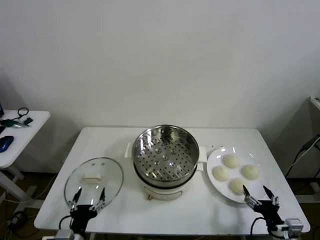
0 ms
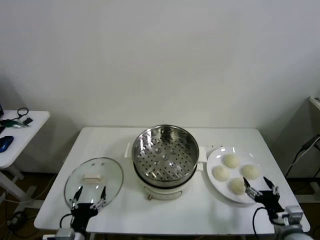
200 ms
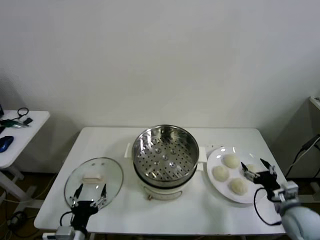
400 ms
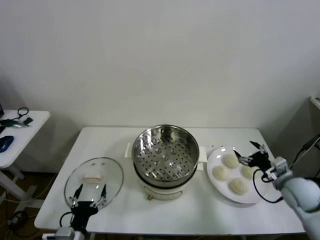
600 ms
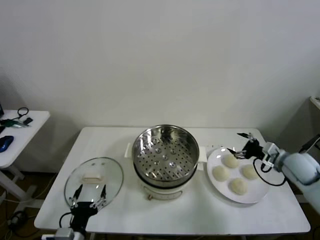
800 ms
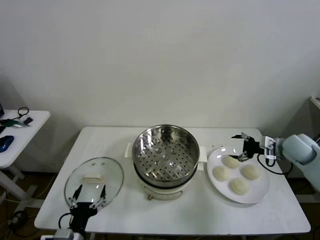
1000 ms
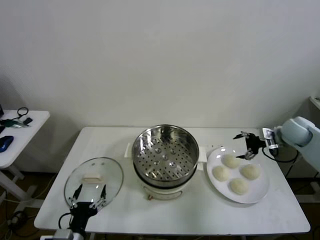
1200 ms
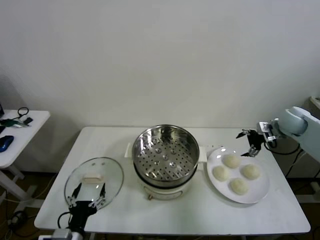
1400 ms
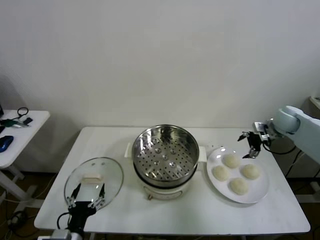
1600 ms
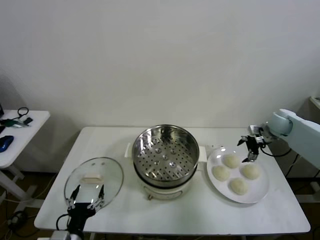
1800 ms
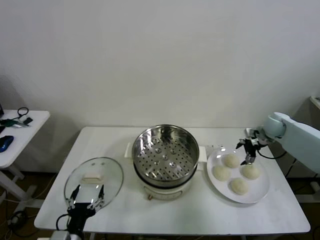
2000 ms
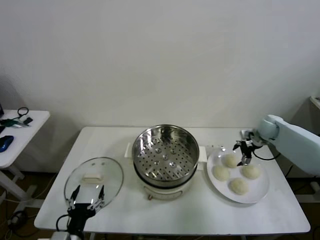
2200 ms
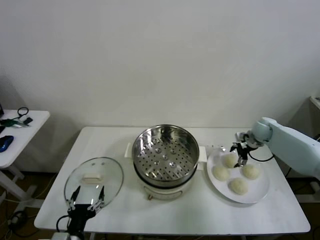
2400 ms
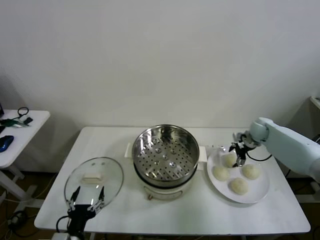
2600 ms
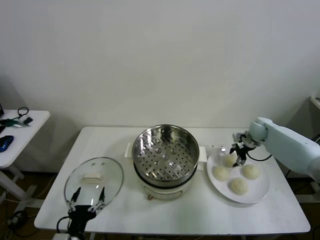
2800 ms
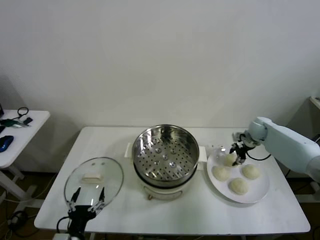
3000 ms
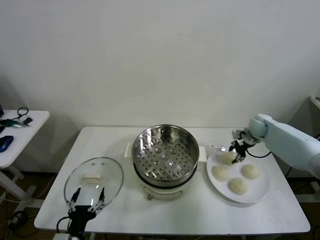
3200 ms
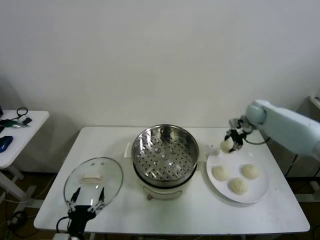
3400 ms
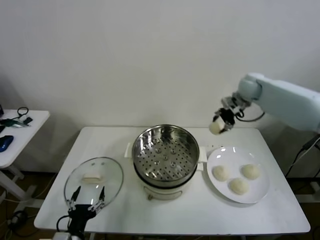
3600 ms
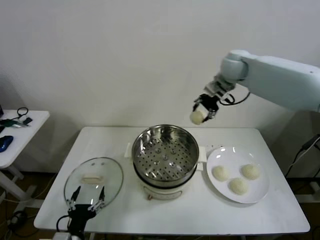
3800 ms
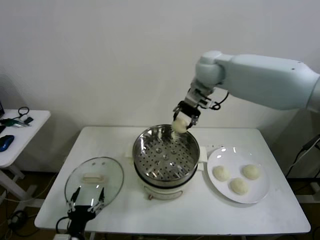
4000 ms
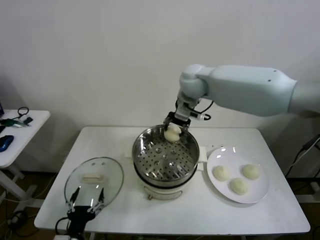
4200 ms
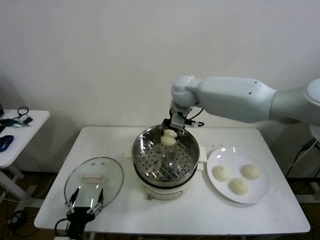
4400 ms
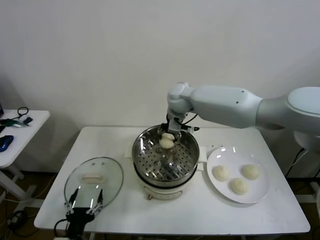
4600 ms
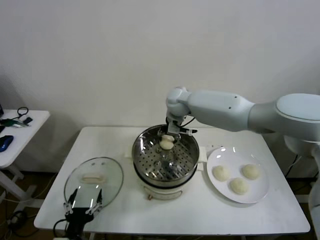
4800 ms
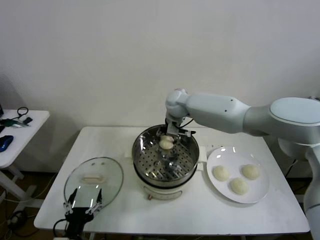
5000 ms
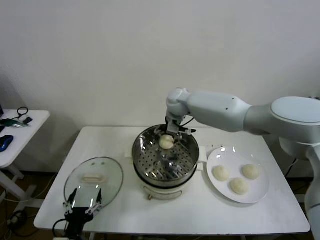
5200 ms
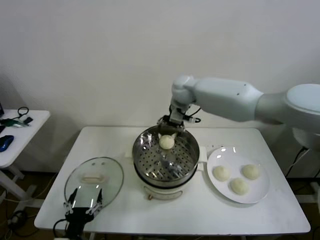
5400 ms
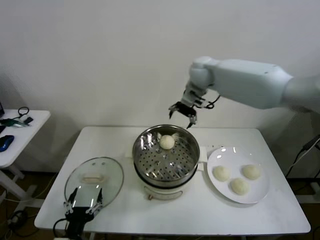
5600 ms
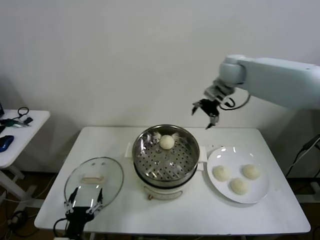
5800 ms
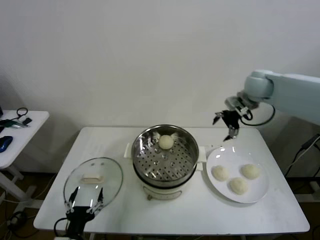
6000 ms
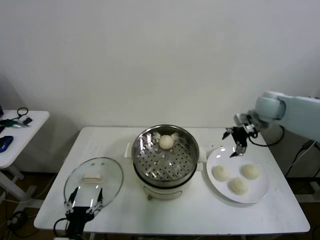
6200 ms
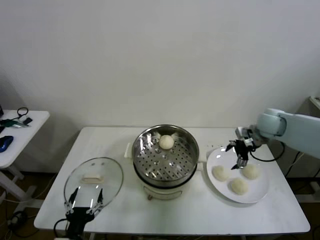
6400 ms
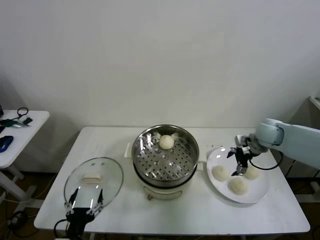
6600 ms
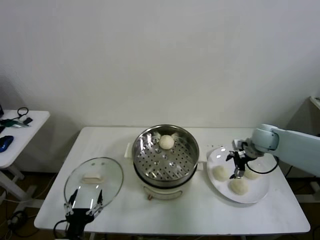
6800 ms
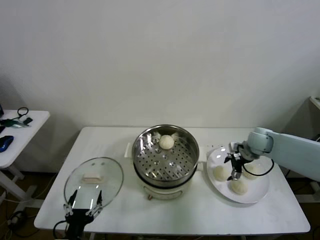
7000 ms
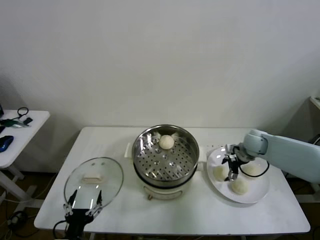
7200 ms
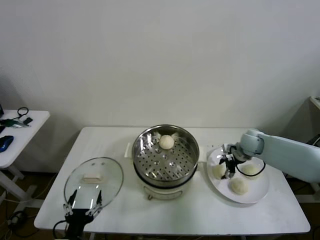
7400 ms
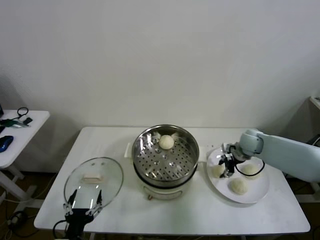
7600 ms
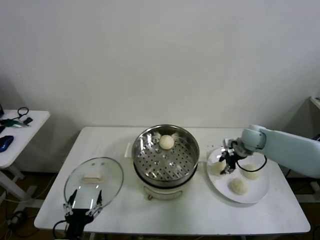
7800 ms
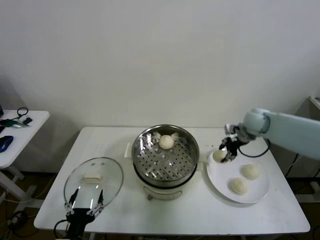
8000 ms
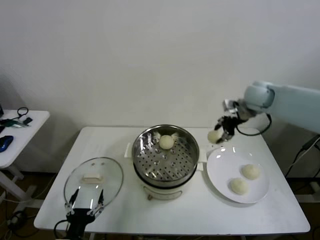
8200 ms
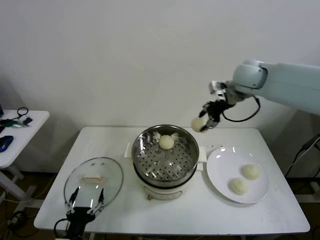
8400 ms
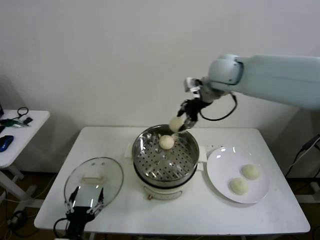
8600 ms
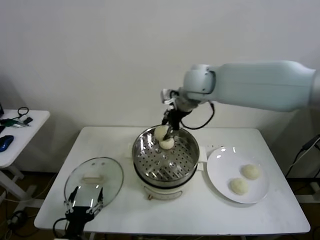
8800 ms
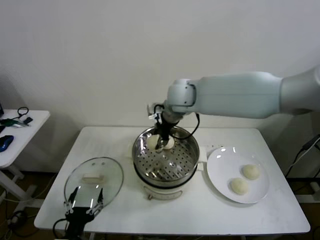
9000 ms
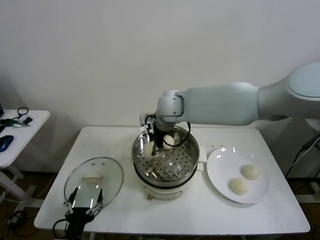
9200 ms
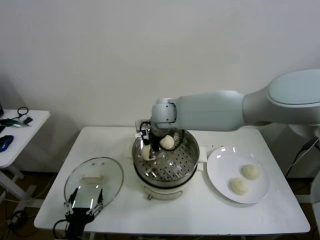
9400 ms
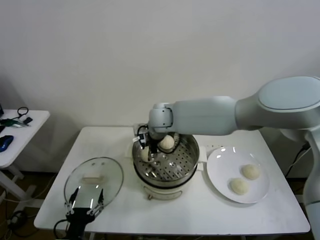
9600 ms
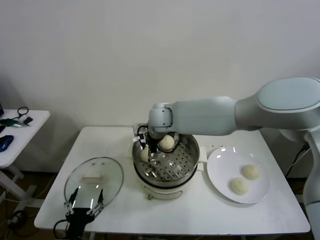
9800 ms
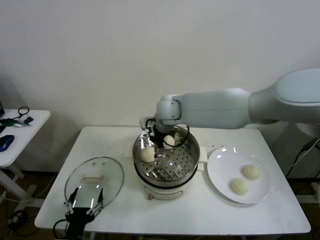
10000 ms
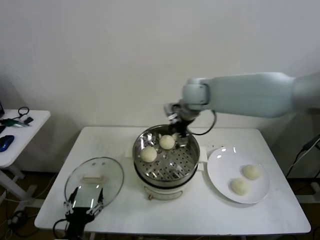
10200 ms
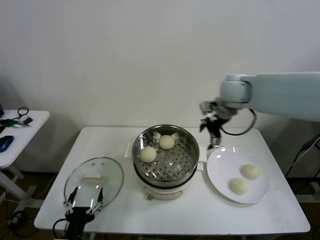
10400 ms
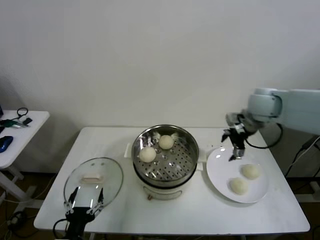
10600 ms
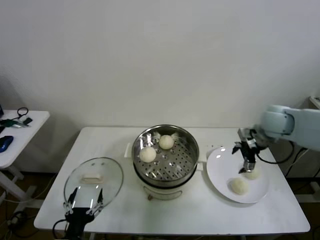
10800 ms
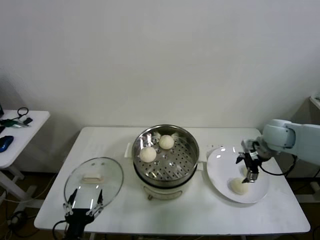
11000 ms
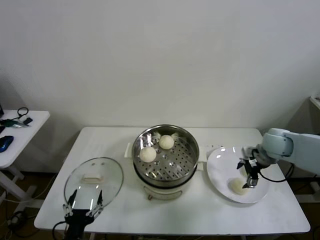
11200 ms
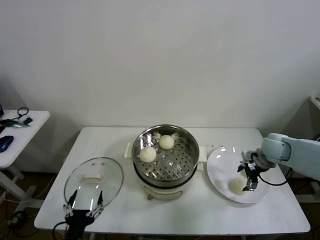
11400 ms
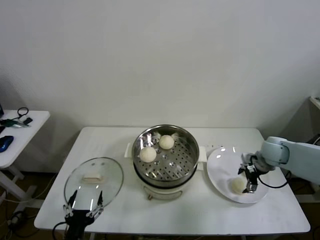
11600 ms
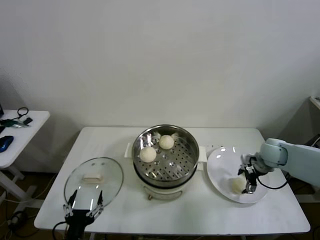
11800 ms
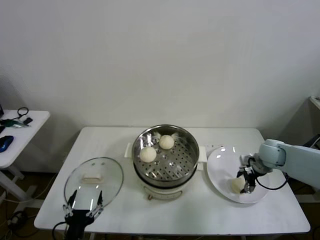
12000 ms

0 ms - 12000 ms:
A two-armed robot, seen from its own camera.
Task of the whole recording: take steamed baozi put them in steamer then cover it.
Step, 0 ms - 3000 ms: Grasp the baozi in the plate with right gripper.
Step, 3200 ms - 5200 ms: Place the baozi on the steamer with right gripper.
Step, 5400 ms - 7600 ms: Grasp the baozi in the plate with right gripper.
Step, 7800 ms - 9800 ms: Place the baozi on the steamer with right gripper.
1600 ms - 3000 ms: The right gripper is displaced downward by about 10 cm, and closes its fingers.
3000 ms - 4400 ms: The right gripper is displaced to the left and upward by some 40 cm.
4400 ms - 6000 ms: The right gripper goes some 25 cm to the right, and opens its fingers.
6000 ms - 7600 ms: The right gripper shifts approximately 20 cm downward, and closes.
7600 ms - 9000 ms: The right gripper is displaced to the left and upward by approximately 35 cm.
9000 ms - 10400 ms: The right gripper moves to the right, approximately 20 cm, and opens.
10400 ms - 12000 ms: The right gripper goes some 25 cm downward and to the right, and closes.

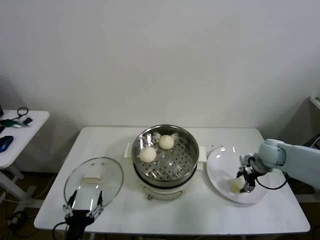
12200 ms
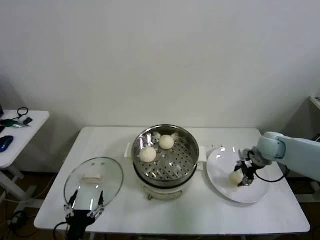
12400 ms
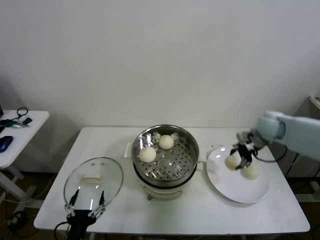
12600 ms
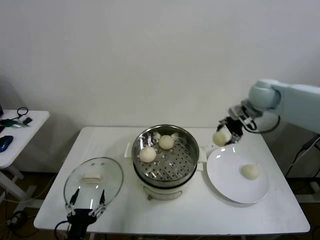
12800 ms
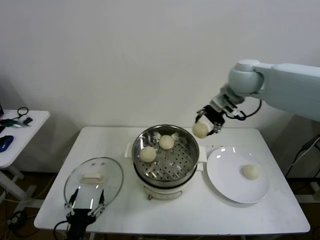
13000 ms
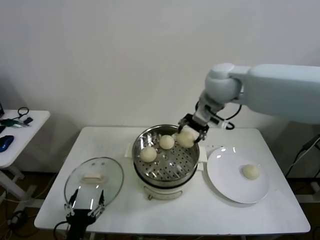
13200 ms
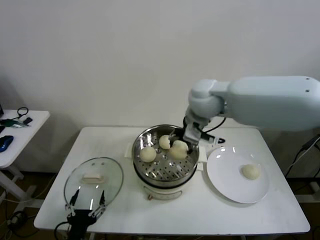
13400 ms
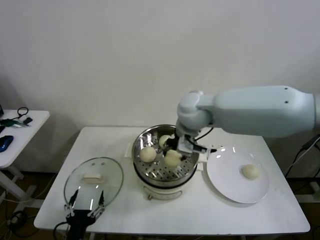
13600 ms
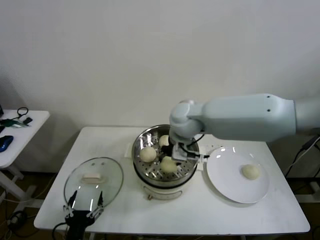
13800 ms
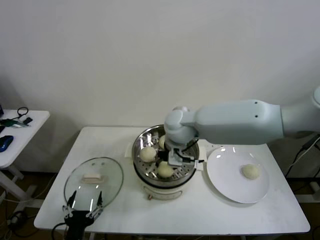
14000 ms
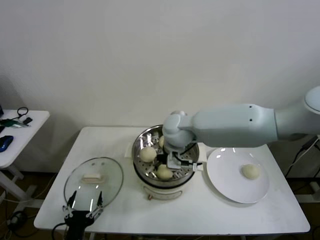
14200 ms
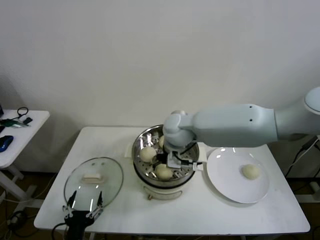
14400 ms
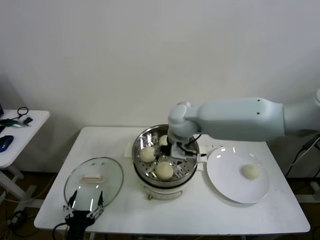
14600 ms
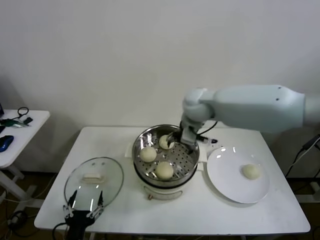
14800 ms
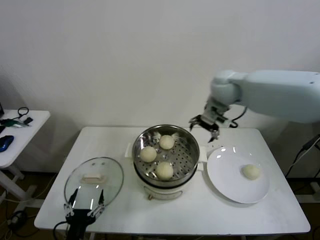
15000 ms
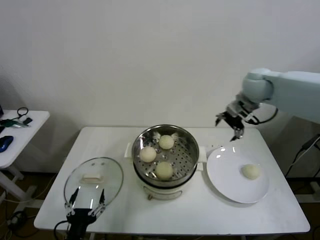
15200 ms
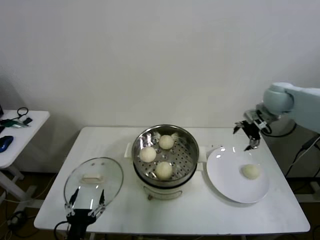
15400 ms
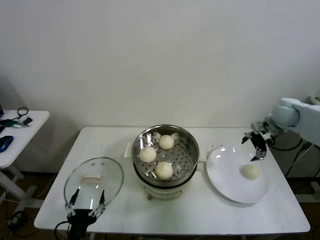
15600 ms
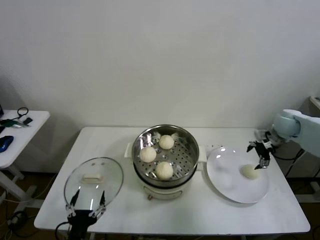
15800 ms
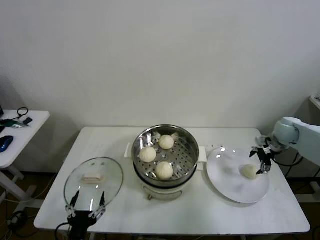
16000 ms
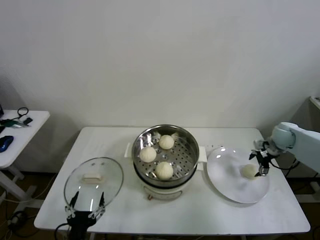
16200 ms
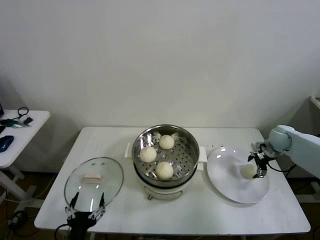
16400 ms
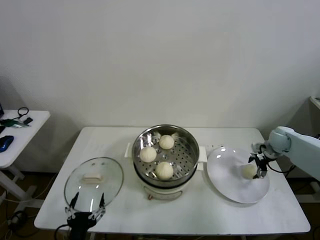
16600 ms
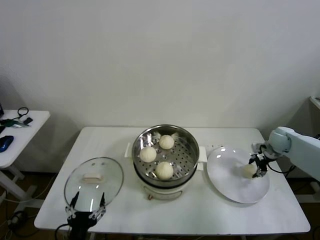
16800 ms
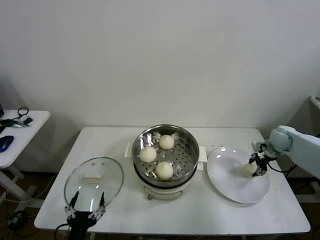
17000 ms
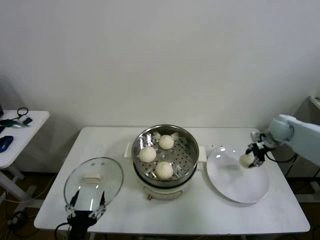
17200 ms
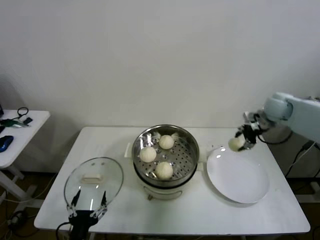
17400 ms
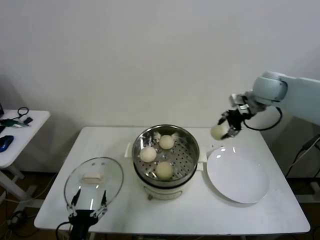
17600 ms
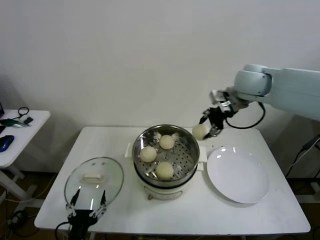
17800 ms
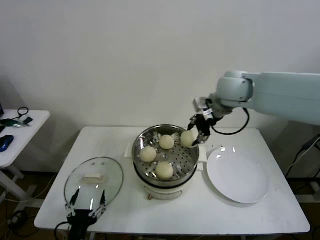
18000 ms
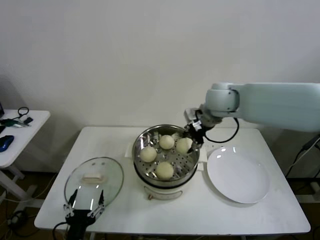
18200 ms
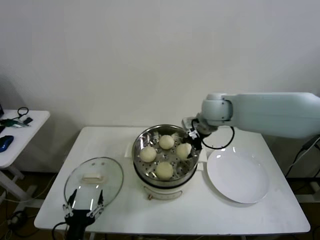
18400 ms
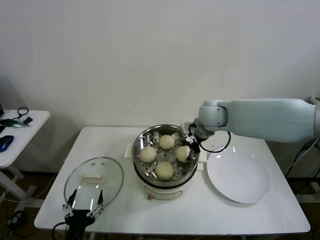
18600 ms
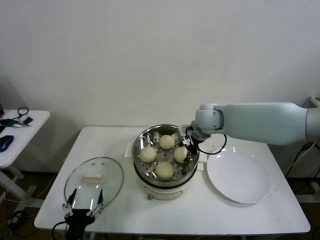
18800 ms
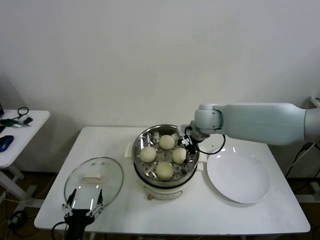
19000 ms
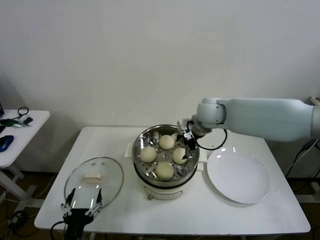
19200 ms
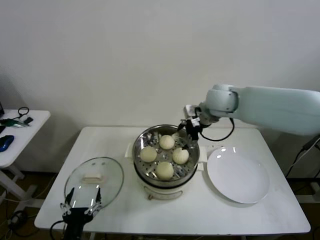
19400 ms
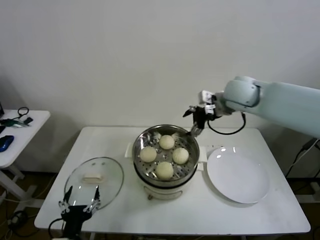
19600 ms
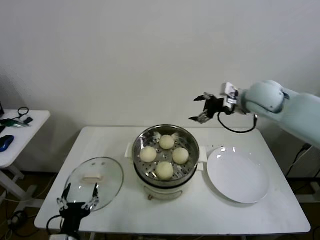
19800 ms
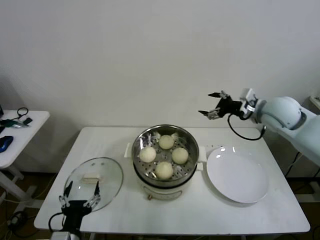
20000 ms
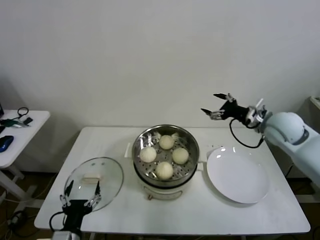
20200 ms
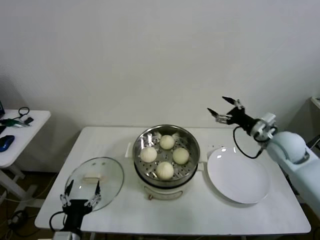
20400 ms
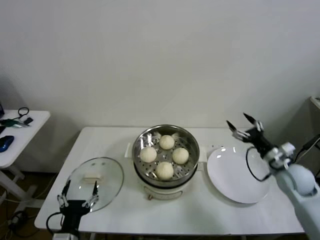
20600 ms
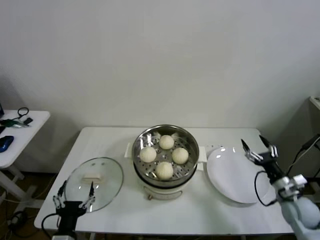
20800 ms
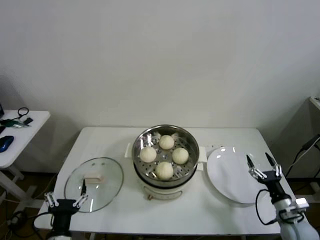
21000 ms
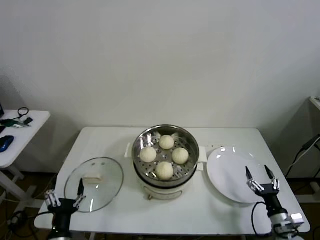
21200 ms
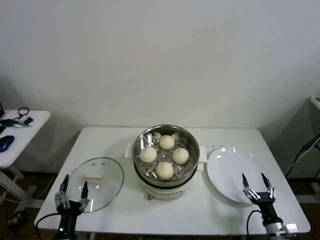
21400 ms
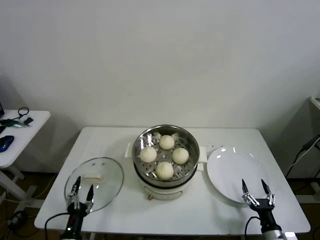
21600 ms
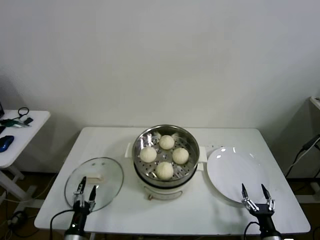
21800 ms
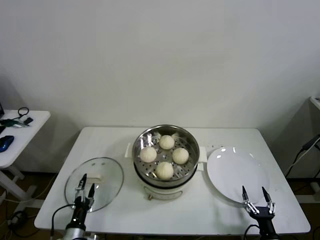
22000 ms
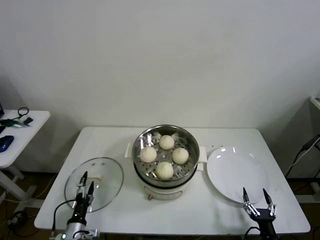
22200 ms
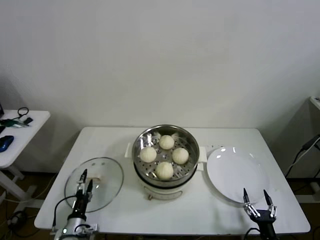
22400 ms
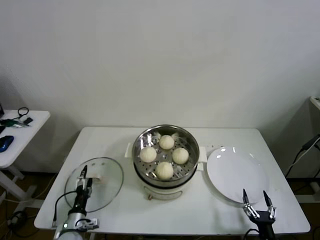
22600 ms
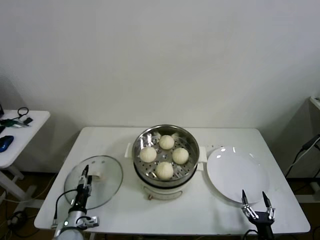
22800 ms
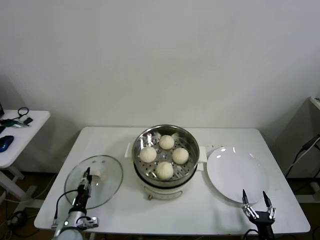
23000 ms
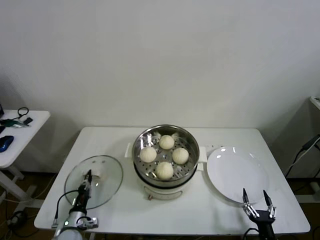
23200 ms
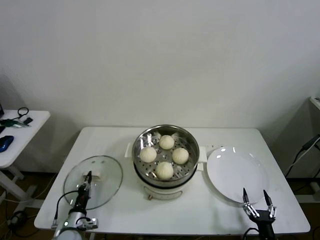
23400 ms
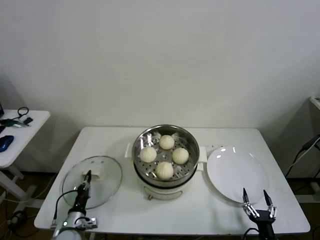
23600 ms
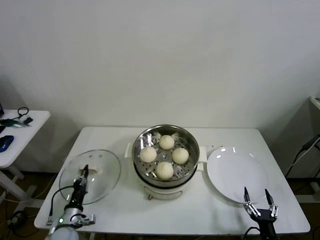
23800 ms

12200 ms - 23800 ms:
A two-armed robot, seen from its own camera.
Task of the whole recording: take steamed baozi put them in steamer then cover it.
Step, 12400 ms - 14400 ms: Place the baozi on the steamer with right gripper.
Step, 14600 ms - 16800 ms: Grasp the baozi in the plate with right gripper.
Step, 17200 ms - 19000 ms: Place the baozi on the steamer with right gripper.
Step, 19200 ms - 23600 ms: Grasp the pot lid with left gripper.
12200 ms - 13600 ms: The right gripper heads to the left and upward, covering approximately 35 cm.
13600 ms - 15000 ms: The right gripper moves to the right and forward, some 15 cm, and opens its fingers.
15000 ms - 16600 ms: The right gripper goes some 35 cm to the right and downward.
16600 ms - 18000 ms: The right gripper is displaced to the left and upward by some 35 cm, and closes its fingers.
18000 ms - 19400 ms: The right gripper opens.
19400 ms - 21000 ms: The right gripper is displaced downward, backward and to the right by some 50 cm.
21000 ms - 22400 ms: The right gripper travels backward, downward and to the left by approximately 15 cm. Meanwhile the left gripper goes roughly 15 cm downward and forward.
22400 ms - 23800 ms: The left gripper closes up.
